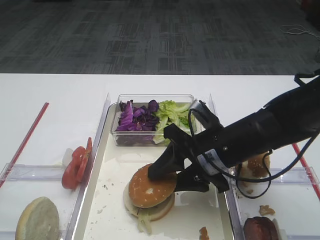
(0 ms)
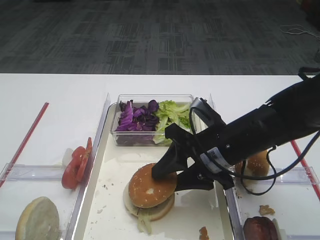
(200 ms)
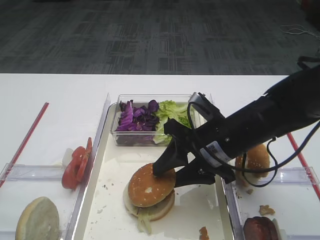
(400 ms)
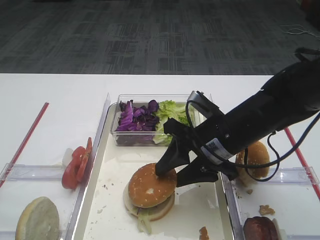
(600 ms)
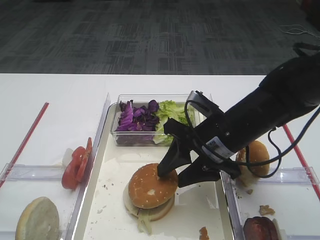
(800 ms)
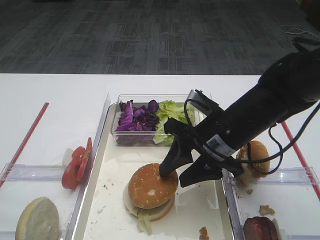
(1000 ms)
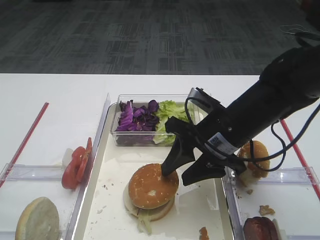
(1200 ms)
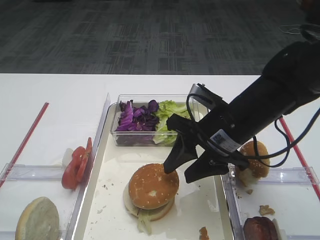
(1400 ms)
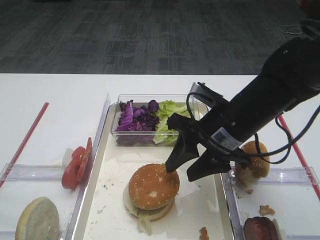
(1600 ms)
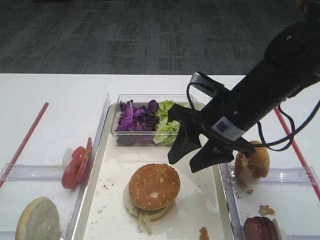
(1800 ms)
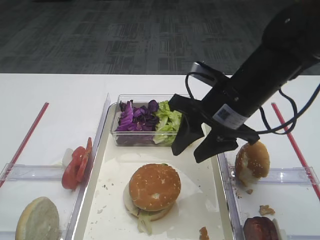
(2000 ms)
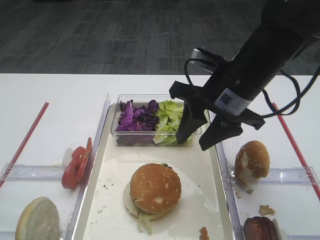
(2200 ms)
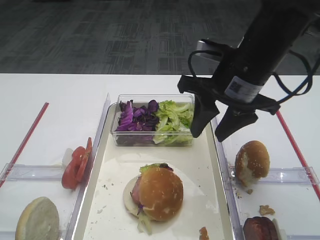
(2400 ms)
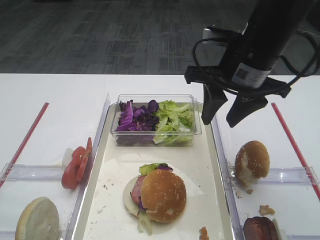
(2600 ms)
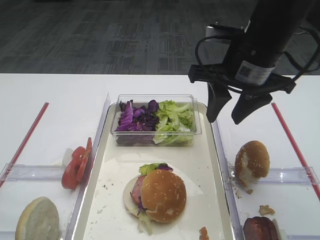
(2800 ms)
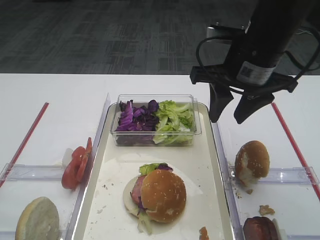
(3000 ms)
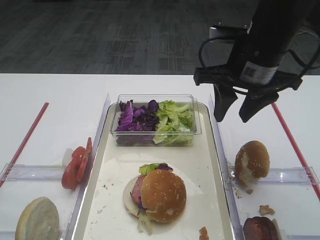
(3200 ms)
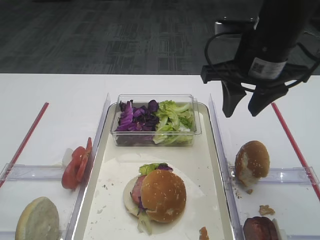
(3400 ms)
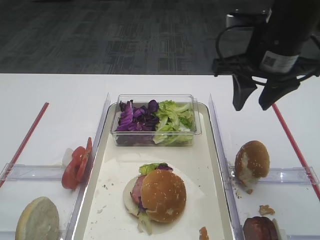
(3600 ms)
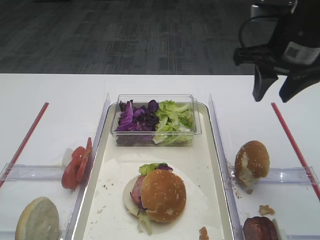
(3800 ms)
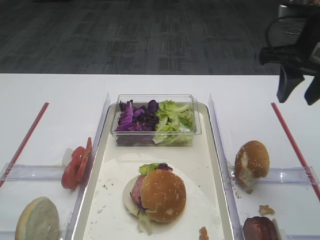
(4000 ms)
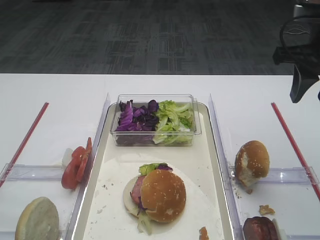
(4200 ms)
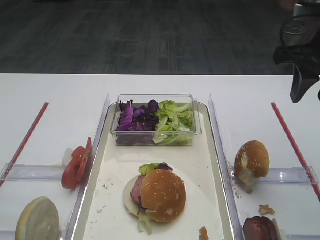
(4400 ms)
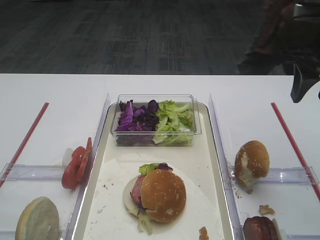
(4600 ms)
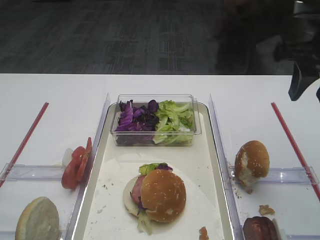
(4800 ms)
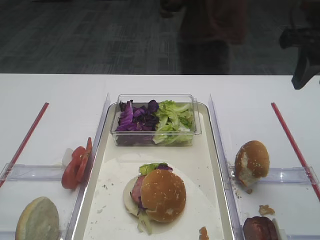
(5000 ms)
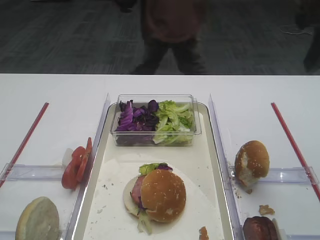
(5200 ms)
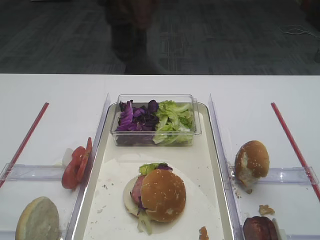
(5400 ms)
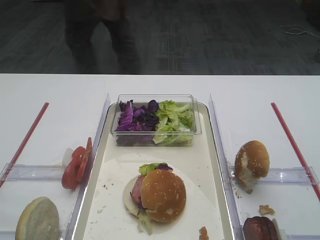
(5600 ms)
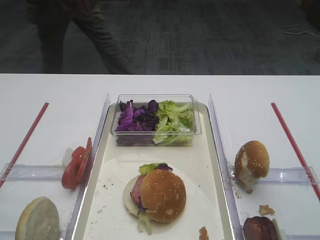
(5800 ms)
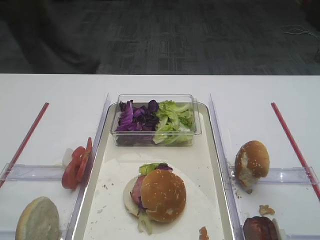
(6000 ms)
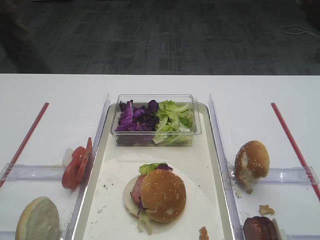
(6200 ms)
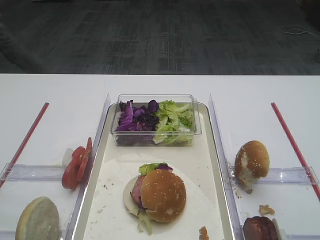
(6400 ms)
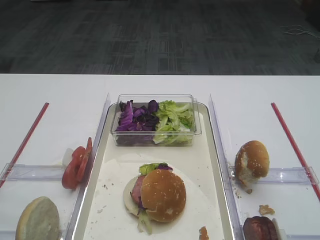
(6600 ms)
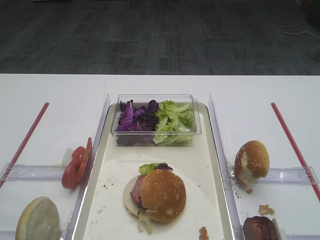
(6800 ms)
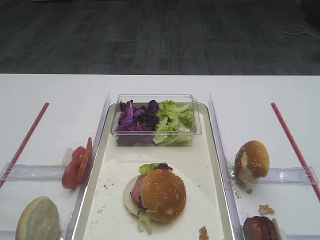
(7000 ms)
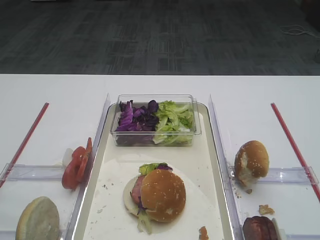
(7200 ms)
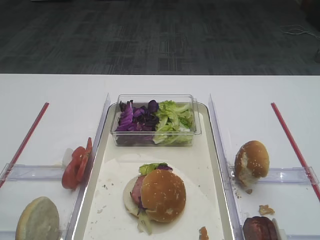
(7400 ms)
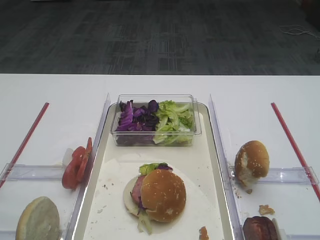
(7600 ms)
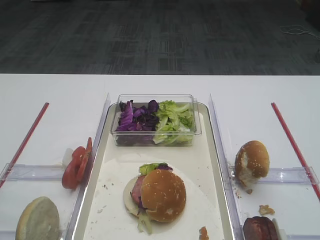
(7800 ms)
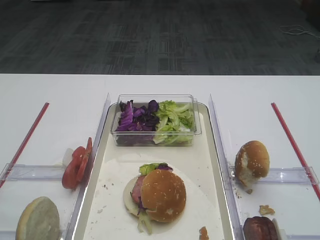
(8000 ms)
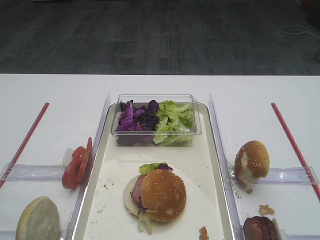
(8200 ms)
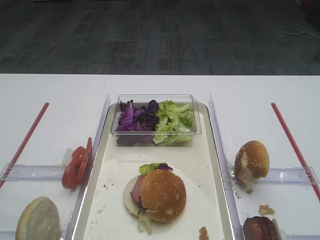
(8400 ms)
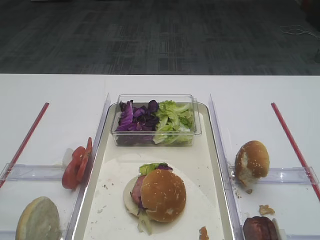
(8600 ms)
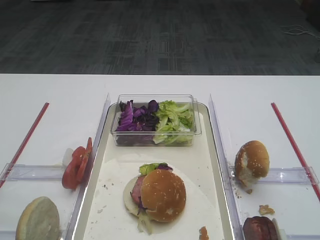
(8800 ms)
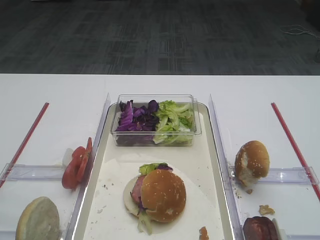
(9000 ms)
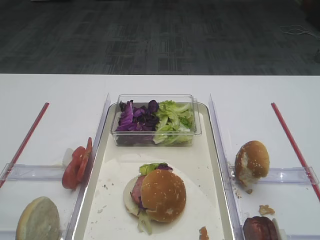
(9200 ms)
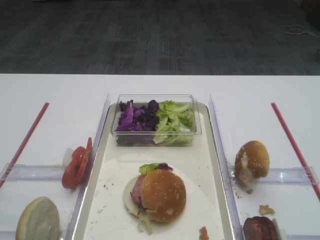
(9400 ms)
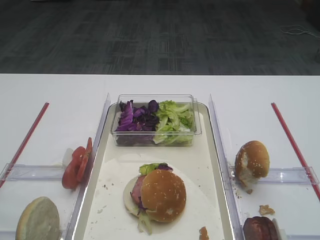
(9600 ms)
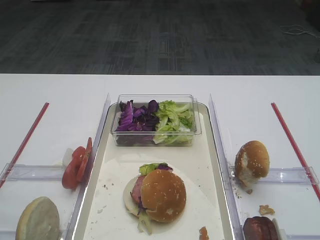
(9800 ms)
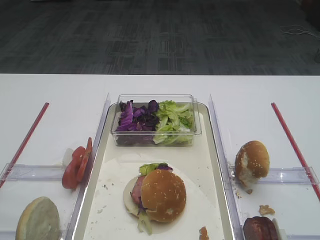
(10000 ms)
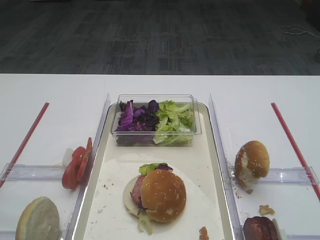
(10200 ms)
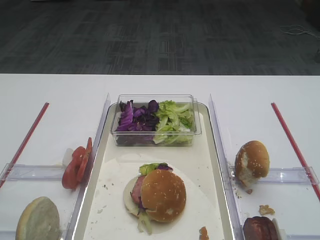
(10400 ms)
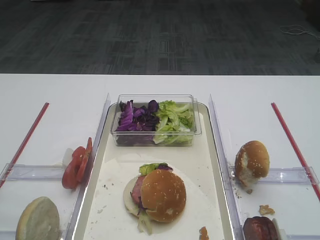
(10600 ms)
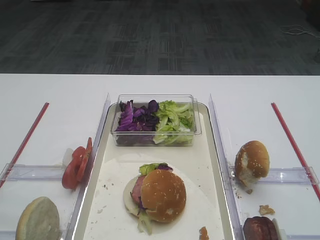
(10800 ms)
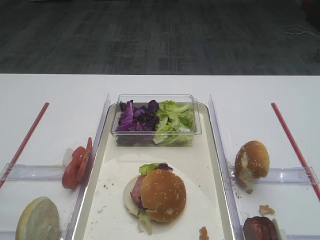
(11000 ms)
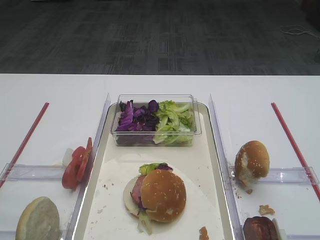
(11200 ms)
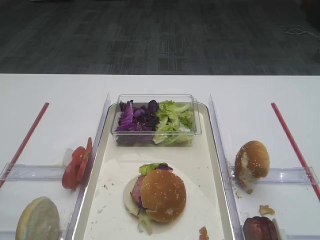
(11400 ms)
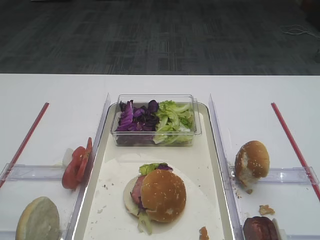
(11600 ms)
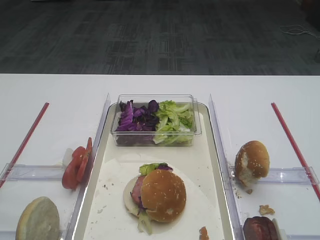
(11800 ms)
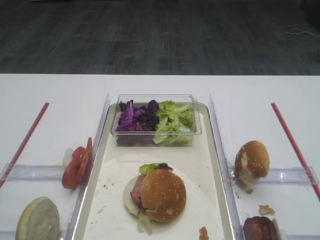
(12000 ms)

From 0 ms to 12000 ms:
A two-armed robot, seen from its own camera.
From 0 ms to 1600 ms: The grippers stay close to where they were, moving slightly.
From 1600 ms to 3000 ms: The right gripper moves upward, about 10 cm.
From 3000 ms to 4400 ms: The right gripper heads to the right, covering approximately 10 cm.
From 4400 ms to 6000 ms: The right gripper is displaced backward by some 20 cm.
From 9000 ms to 12000 ms: Neither gripper changes place.

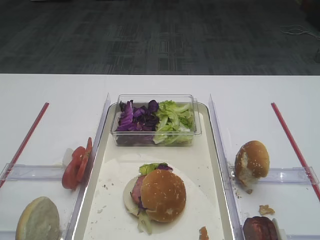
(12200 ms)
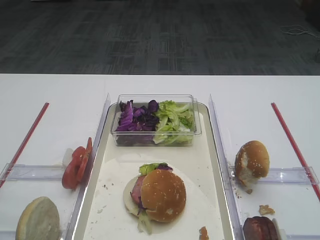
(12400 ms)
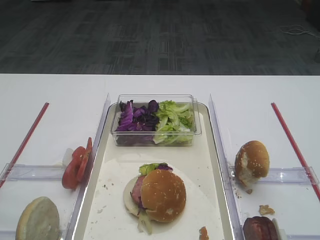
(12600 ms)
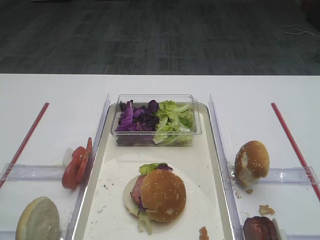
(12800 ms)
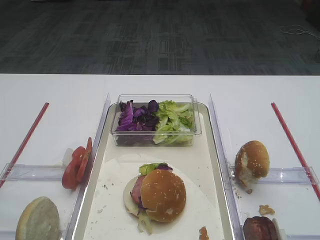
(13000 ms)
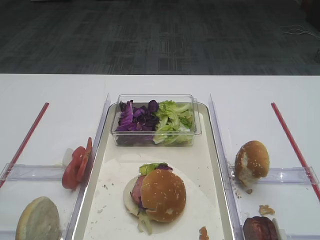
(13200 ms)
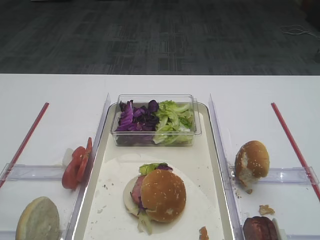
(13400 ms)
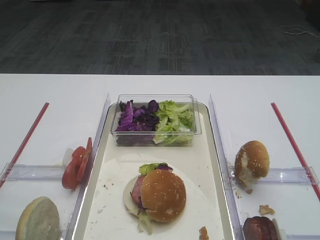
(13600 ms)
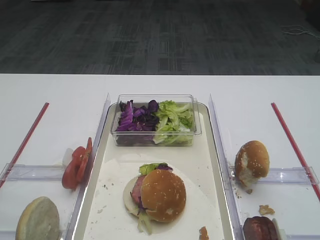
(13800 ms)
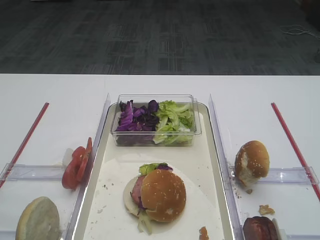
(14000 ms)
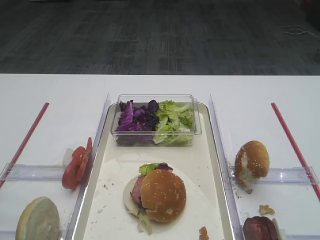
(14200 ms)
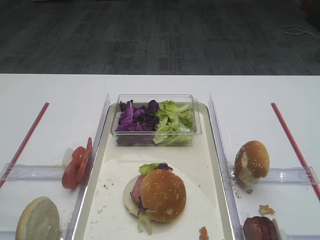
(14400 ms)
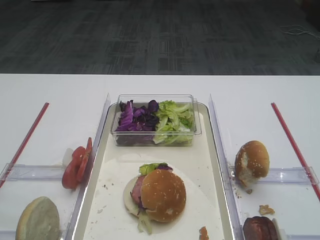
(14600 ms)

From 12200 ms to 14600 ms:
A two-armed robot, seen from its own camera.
From 12200 ms to 14600 ms: Both grippers stay put.

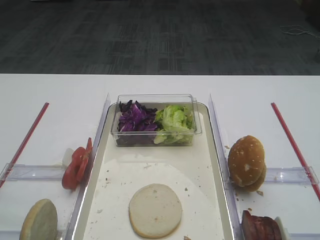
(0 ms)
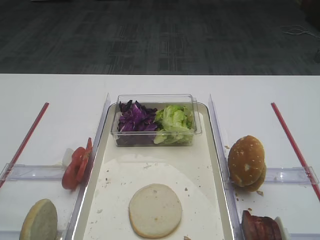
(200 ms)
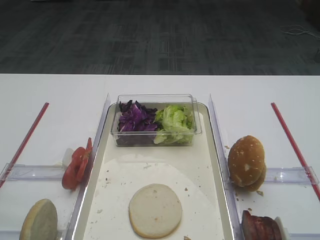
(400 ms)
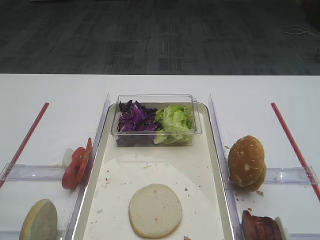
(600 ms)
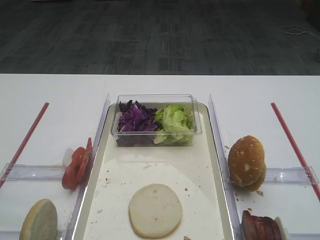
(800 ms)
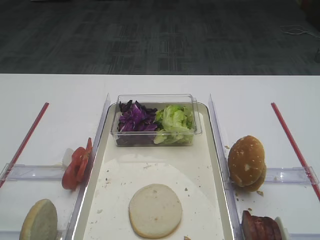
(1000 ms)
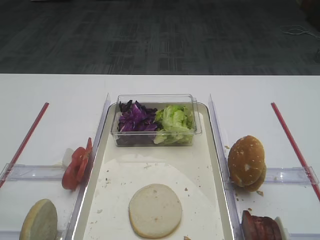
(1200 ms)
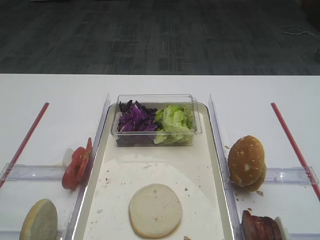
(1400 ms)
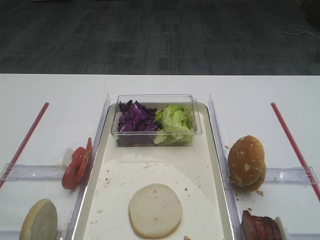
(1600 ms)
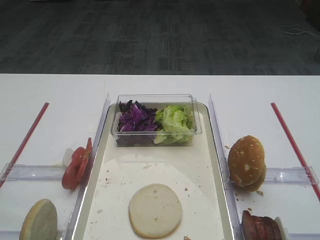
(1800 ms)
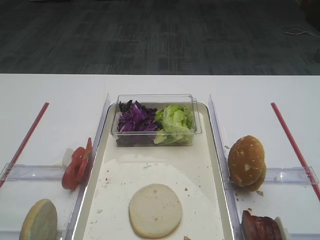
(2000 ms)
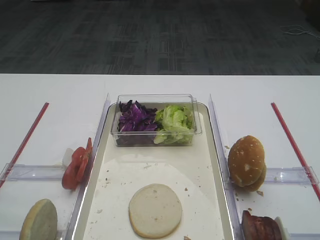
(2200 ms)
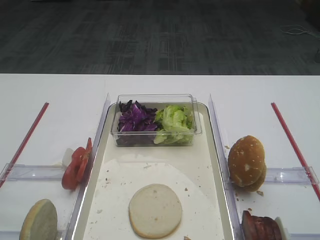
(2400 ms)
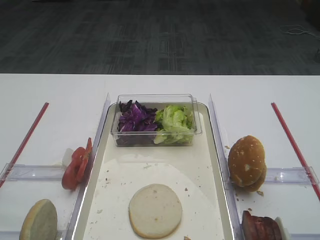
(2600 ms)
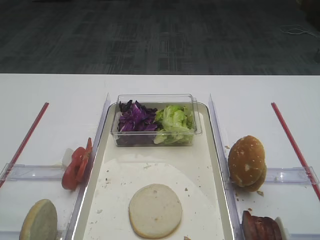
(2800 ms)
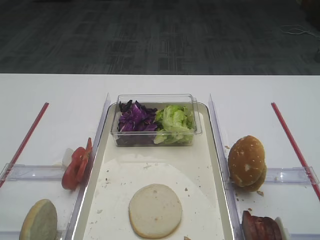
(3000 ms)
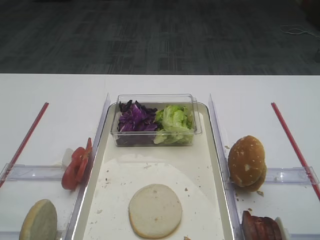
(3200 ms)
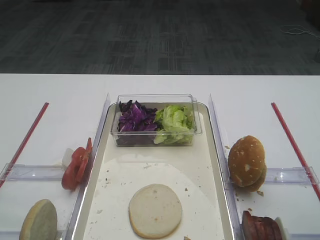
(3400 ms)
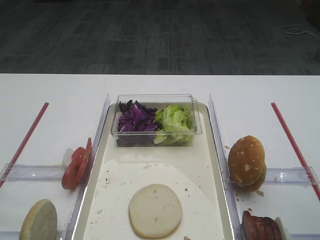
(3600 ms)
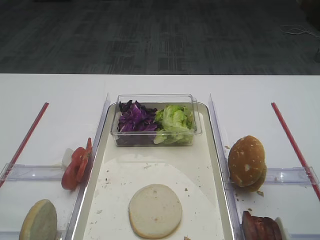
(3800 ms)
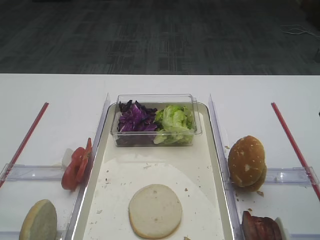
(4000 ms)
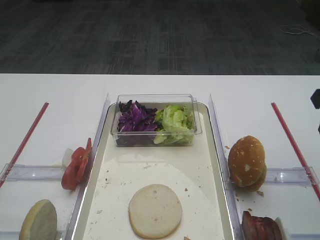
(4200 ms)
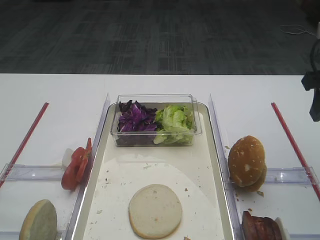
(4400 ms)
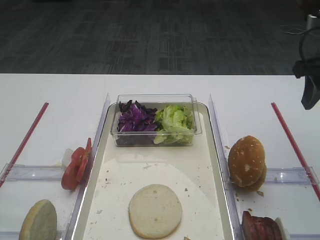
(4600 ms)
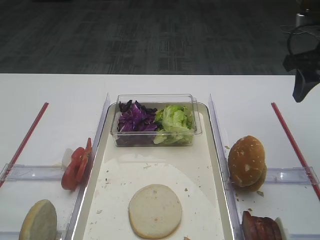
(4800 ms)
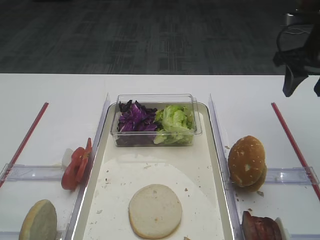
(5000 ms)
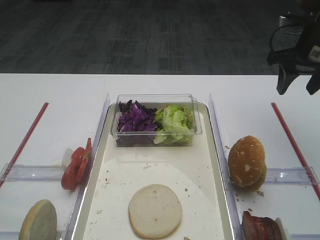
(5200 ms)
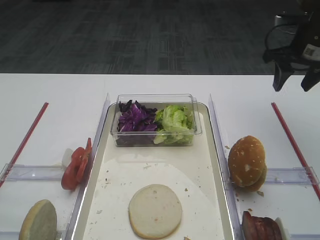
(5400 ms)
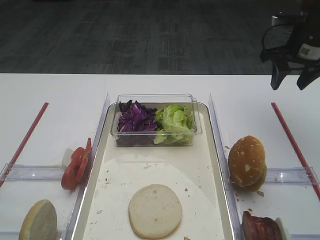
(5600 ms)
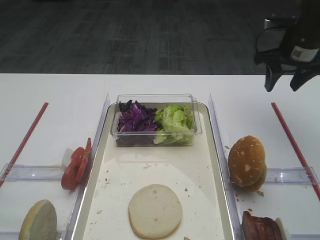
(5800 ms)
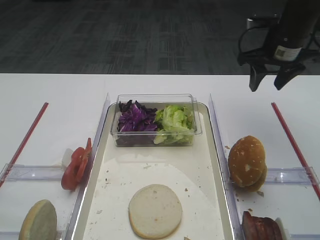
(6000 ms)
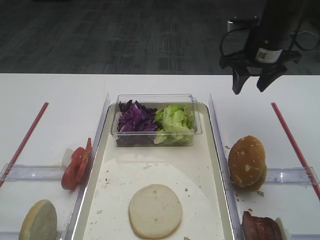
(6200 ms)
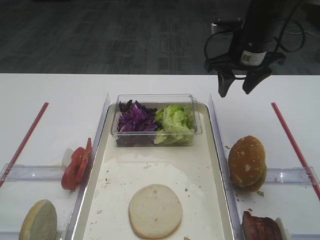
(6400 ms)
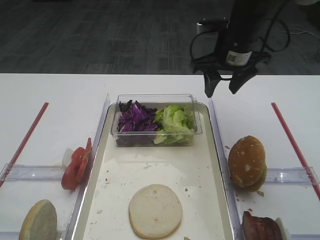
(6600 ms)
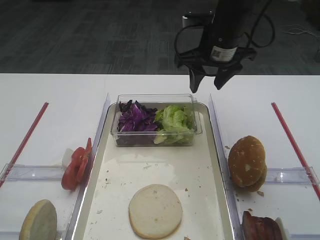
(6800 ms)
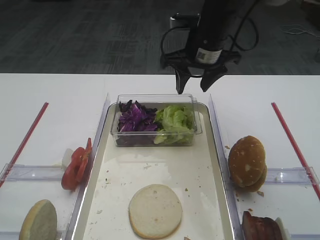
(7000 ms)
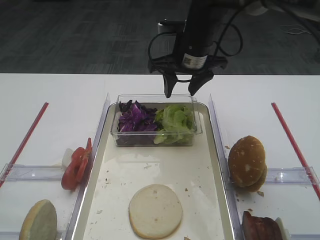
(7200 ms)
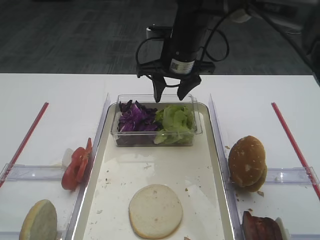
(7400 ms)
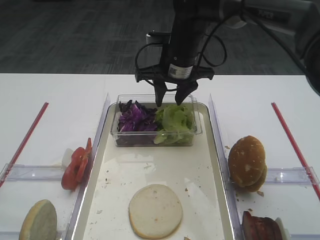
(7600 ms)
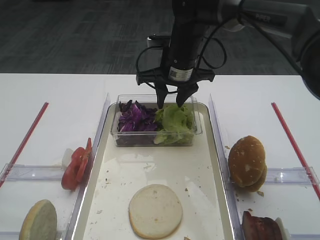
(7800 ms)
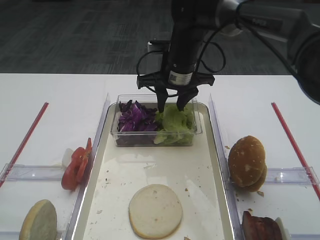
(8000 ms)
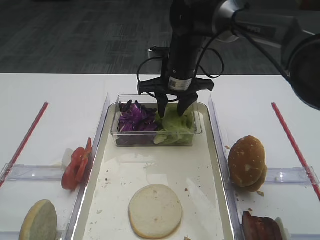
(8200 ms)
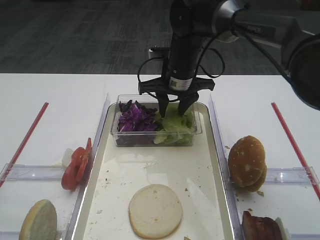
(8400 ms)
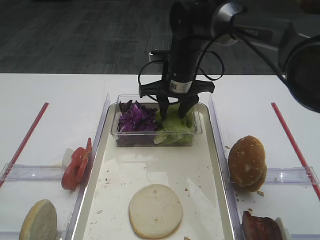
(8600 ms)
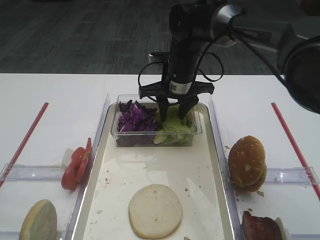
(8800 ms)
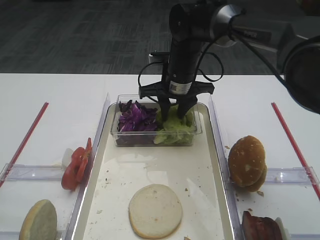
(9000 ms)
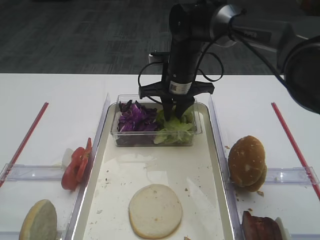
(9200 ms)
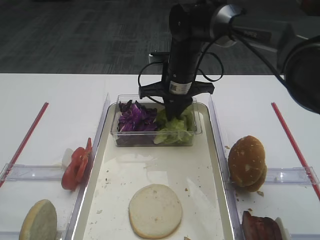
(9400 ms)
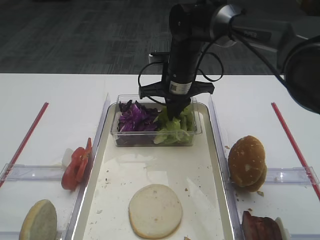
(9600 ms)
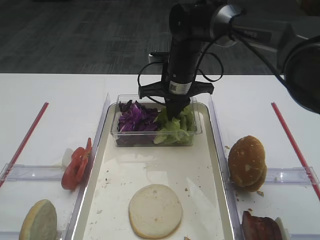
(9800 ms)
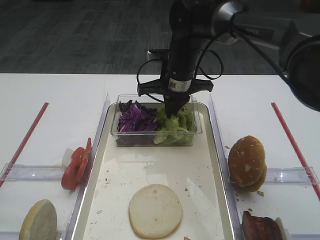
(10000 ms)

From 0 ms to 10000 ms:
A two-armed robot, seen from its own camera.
From 2800 ms to 4200 ms: The right gripper heads forward, covering some 15 cm.
From 4200 ms to 5800 ms: The right gripper goes approximately 20 cm forward.
From 5800 ms to 7200 ms: The right gripper is displaced to the left by roughly 20 cm.
From 7200 ms to 8600 ms: The right gripper heads downward, covering approximately 5 cm.
From 8600 ms to 10000 ms: The right gripper closes.
